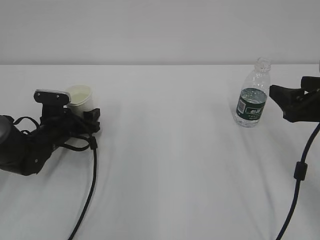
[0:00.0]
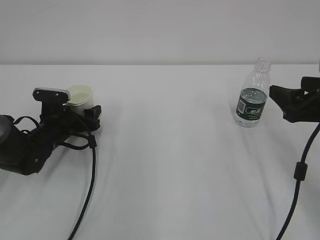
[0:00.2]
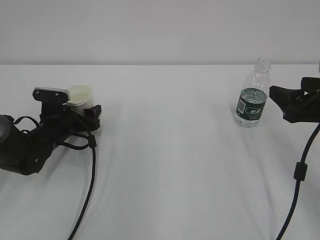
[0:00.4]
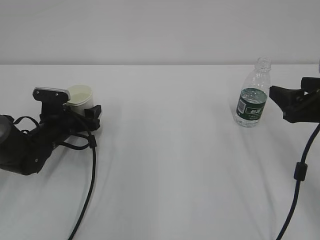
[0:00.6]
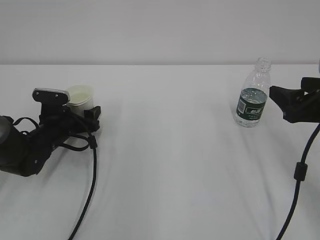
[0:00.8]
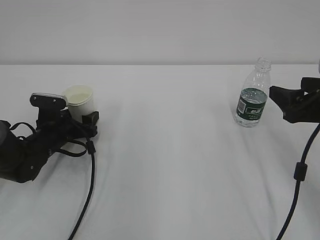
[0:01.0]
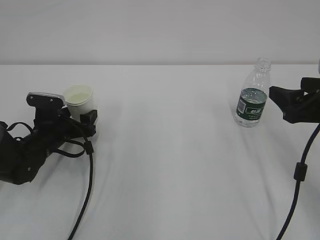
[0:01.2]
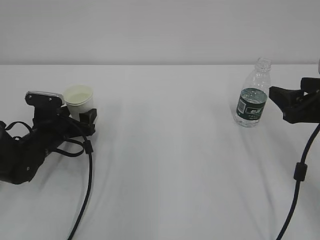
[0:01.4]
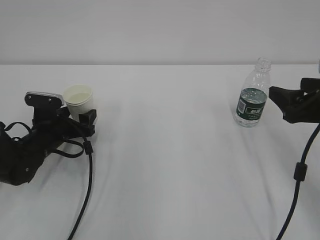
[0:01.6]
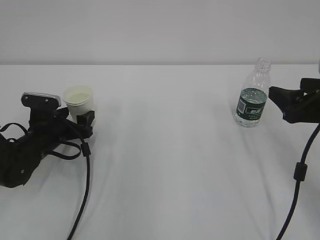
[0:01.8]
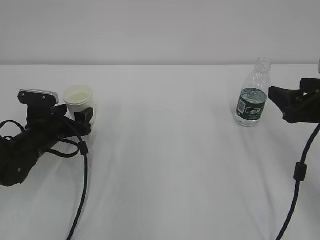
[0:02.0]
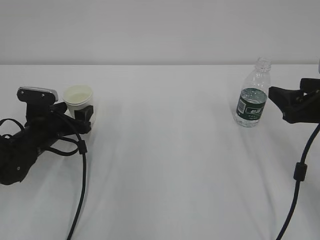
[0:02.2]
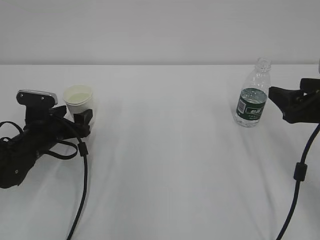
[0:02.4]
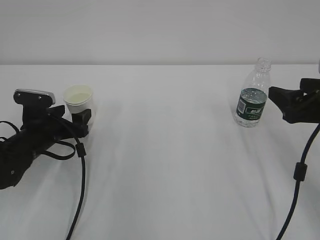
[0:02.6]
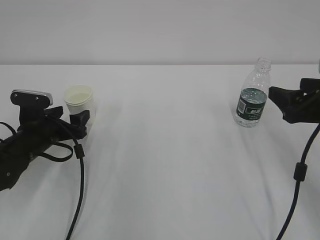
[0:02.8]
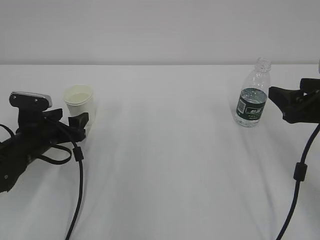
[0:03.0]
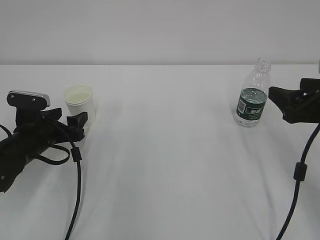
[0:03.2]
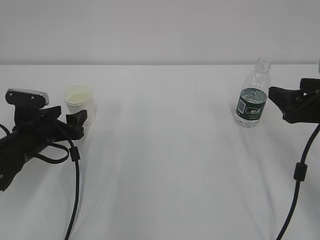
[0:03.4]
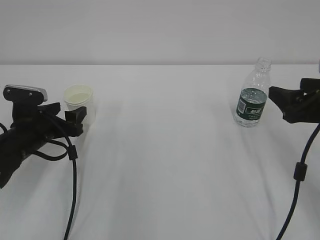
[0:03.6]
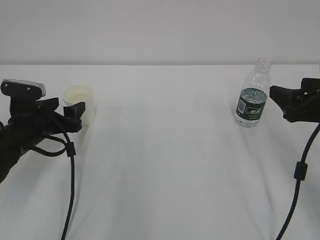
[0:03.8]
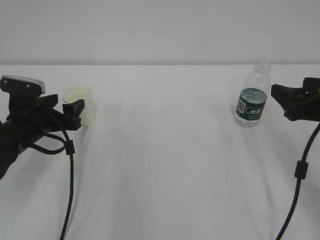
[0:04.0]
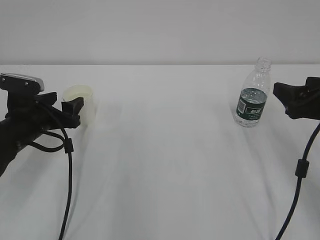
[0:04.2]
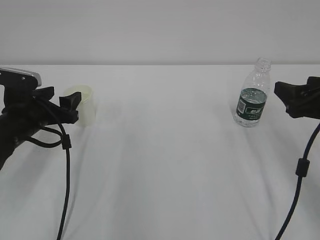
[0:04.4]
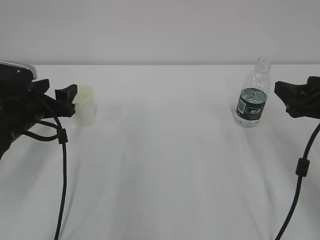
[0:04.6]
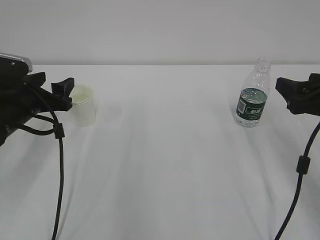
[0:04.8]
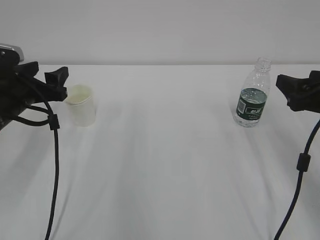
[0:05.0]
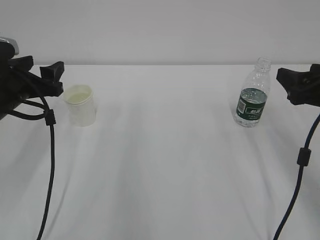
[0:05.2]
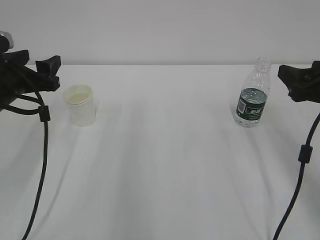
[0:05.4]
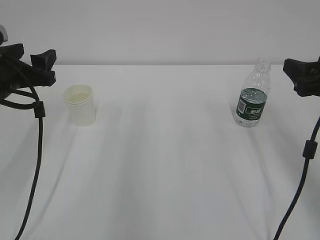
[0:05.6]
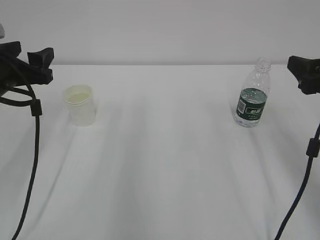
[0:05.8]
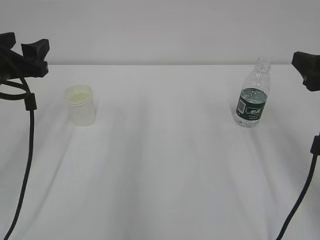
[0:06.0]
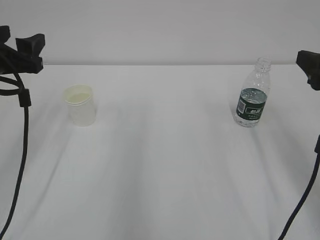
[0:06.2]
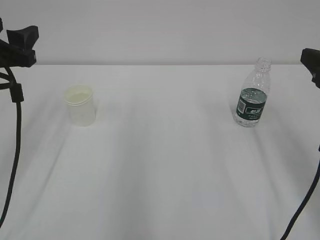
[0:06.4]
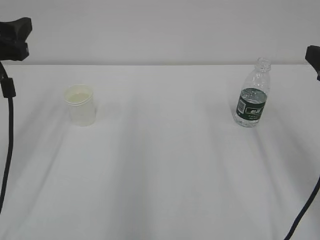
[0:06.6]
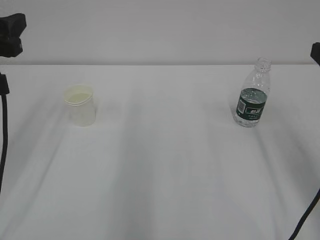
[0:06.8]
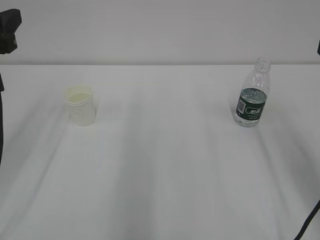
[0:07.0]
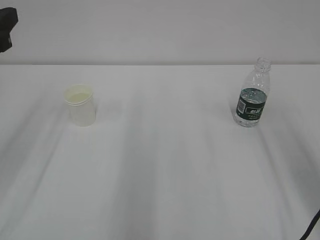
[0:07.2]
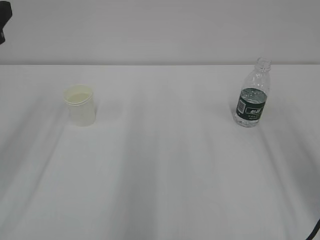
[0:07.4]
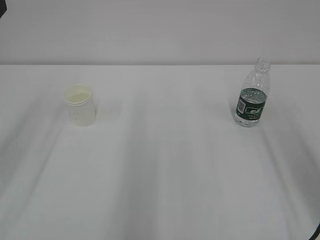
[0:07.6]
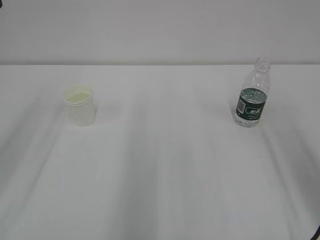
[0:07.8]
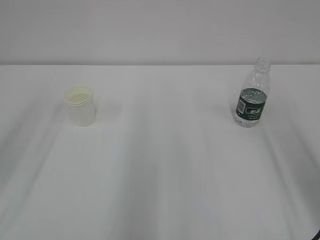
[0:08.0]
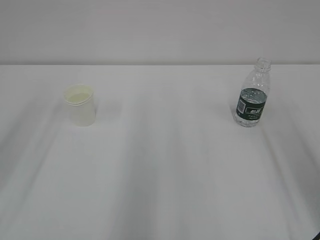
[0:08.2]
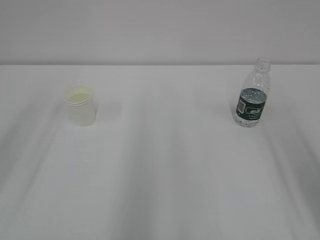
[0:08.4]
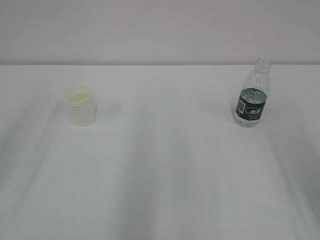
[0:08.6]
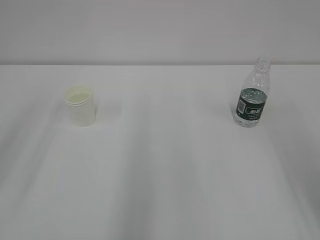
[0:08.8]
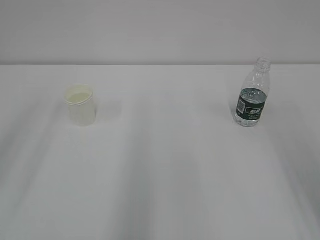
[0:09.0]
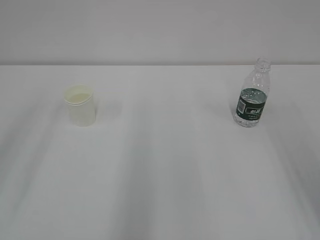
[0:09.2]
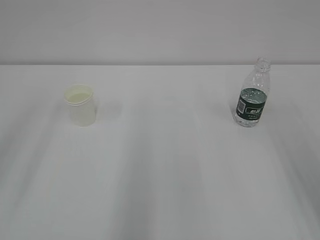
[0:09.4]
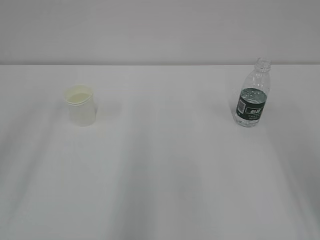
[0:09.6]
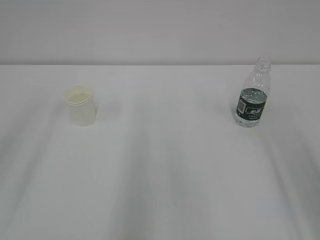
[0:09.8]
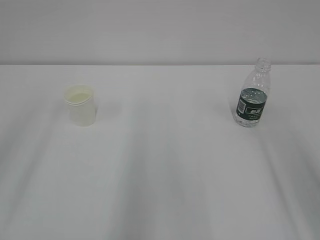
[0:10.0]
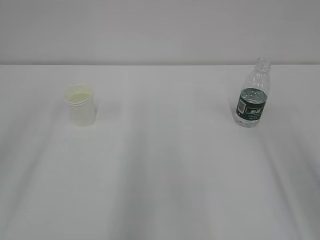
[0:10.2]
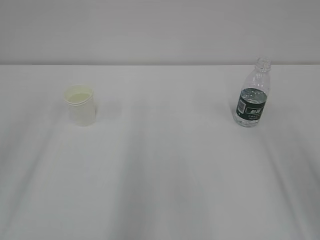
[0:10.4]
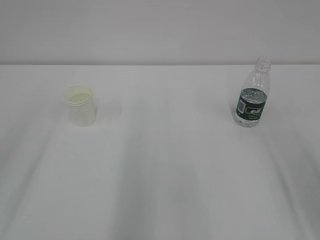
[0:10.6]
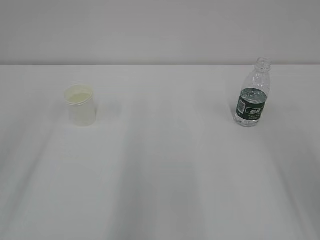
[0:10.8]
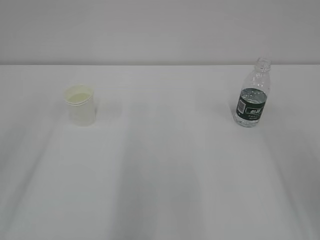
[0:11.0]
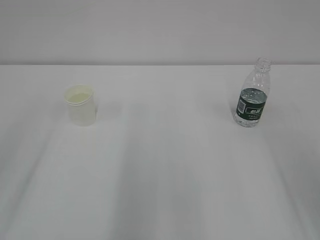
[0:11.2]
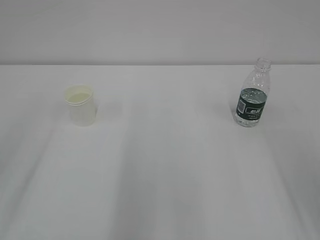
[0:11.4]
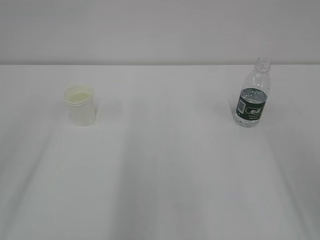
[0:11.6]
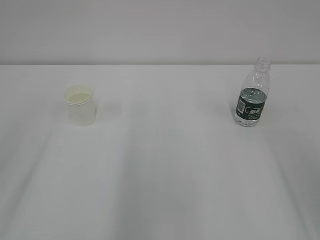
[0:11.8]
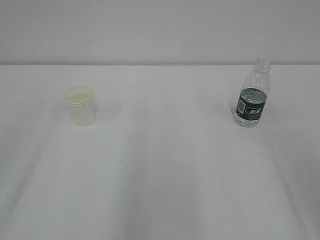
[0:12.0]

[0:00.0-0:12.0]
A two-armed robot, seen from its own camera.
0:00.0 to 0:01.6: The left gripper opens its fingers.
0:01.6 to 0:03.0: There are only small adjustments of the grippers.
0:03.0 to 0:04.4: The left gripper goes about 5 cm upward.
0:04.4 to 0:06.0: The left gripper heads upward, covering some 10 cm.
0:06.0 to 0:07.6: The left gripper moves upward and backward, roughly 10 cm. The right gripper travels backward and upward by some 10 cm.

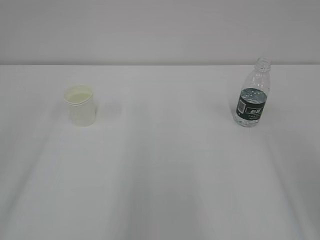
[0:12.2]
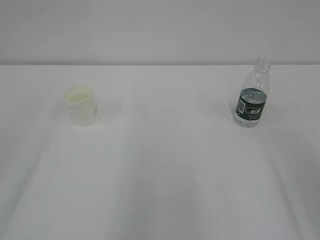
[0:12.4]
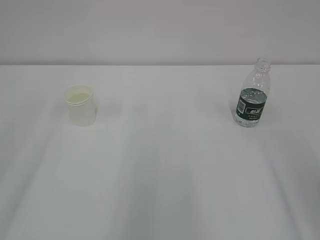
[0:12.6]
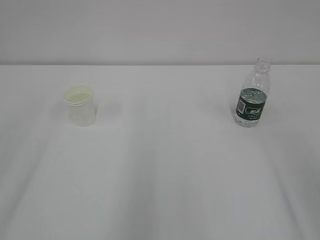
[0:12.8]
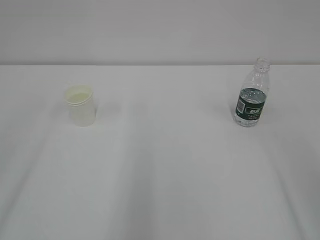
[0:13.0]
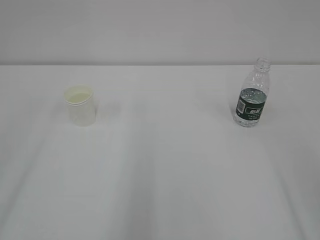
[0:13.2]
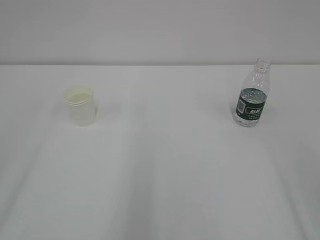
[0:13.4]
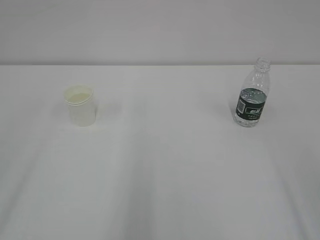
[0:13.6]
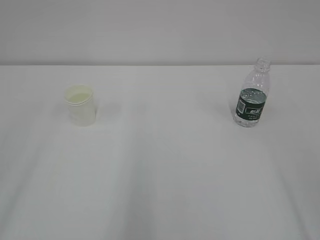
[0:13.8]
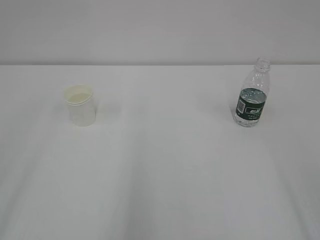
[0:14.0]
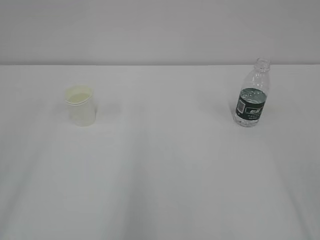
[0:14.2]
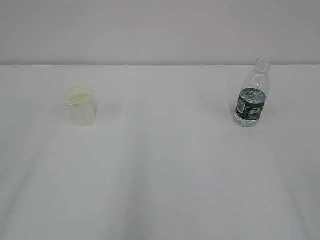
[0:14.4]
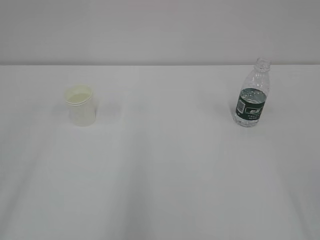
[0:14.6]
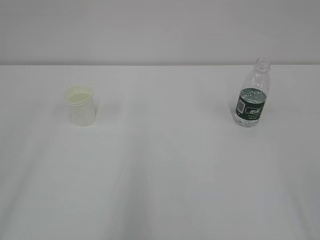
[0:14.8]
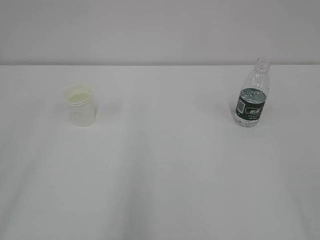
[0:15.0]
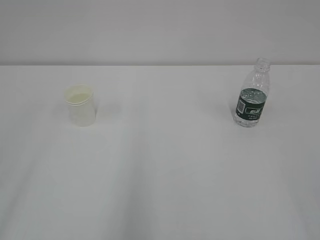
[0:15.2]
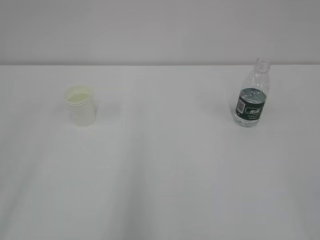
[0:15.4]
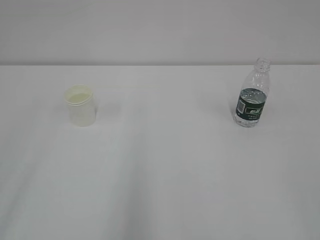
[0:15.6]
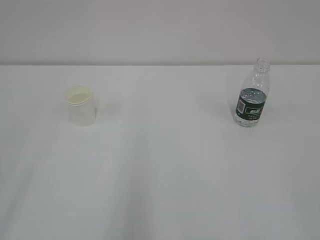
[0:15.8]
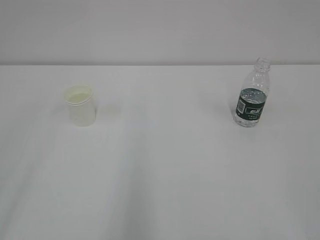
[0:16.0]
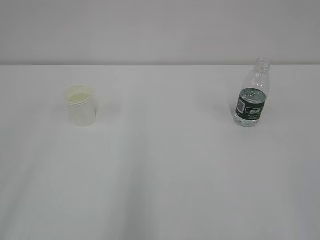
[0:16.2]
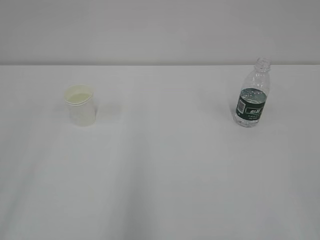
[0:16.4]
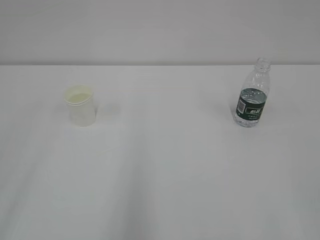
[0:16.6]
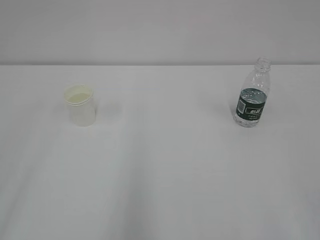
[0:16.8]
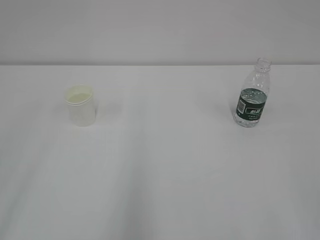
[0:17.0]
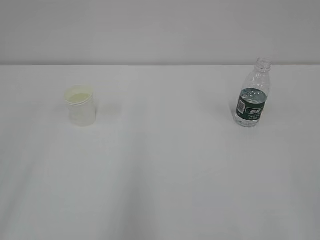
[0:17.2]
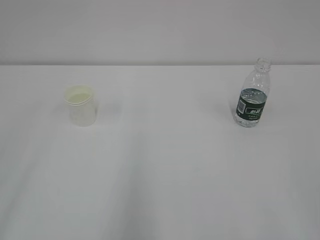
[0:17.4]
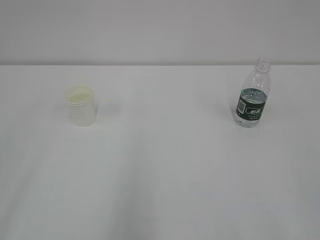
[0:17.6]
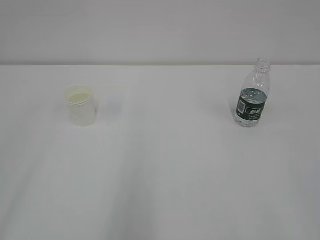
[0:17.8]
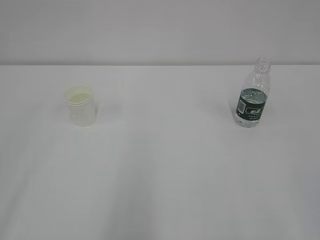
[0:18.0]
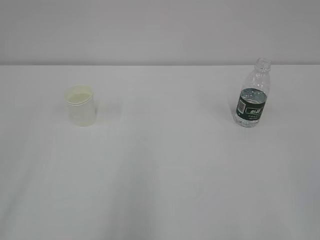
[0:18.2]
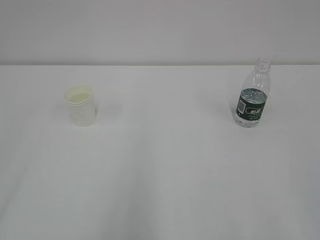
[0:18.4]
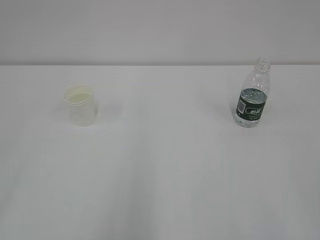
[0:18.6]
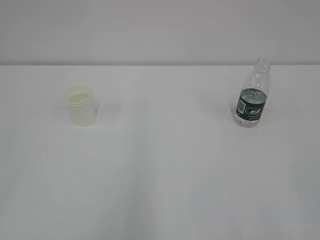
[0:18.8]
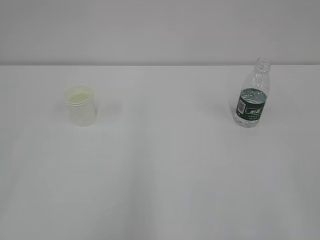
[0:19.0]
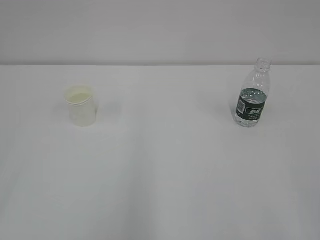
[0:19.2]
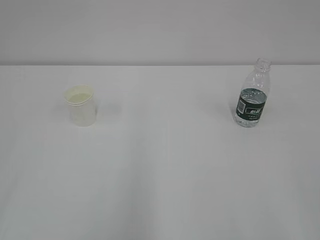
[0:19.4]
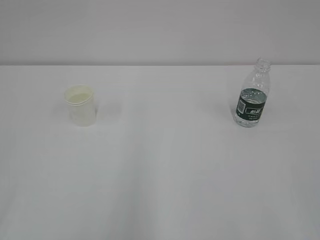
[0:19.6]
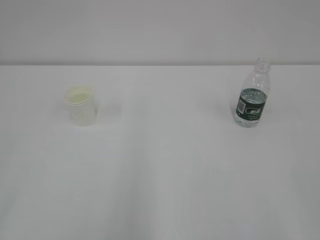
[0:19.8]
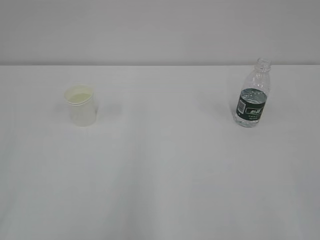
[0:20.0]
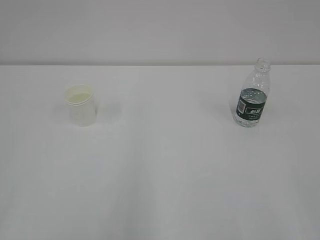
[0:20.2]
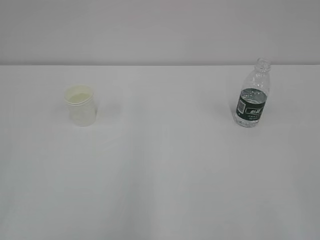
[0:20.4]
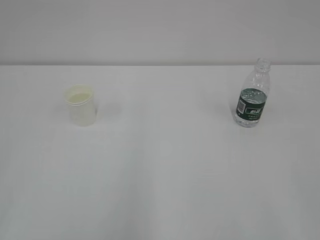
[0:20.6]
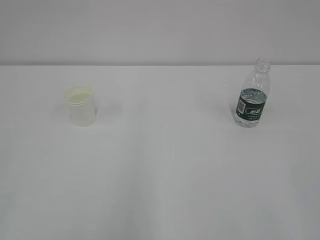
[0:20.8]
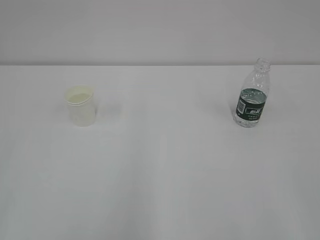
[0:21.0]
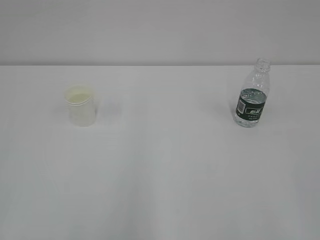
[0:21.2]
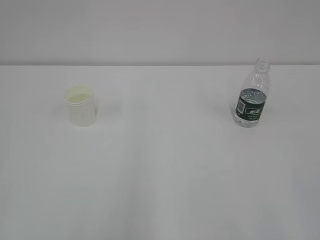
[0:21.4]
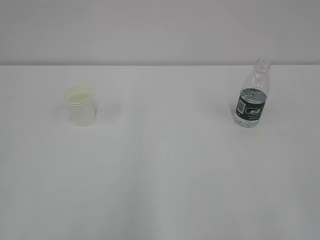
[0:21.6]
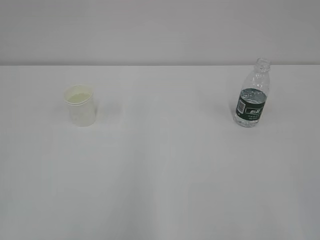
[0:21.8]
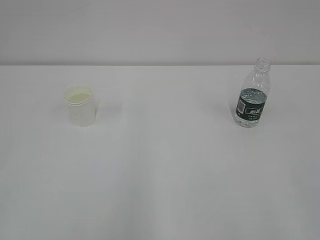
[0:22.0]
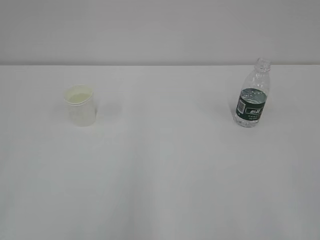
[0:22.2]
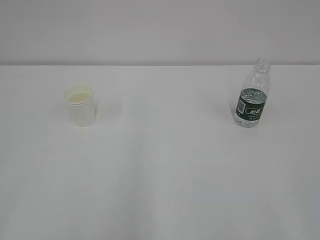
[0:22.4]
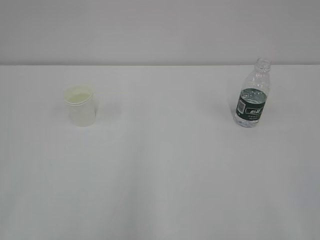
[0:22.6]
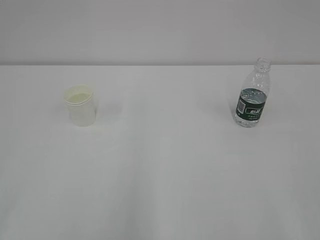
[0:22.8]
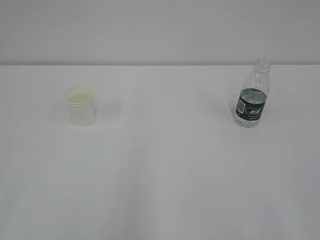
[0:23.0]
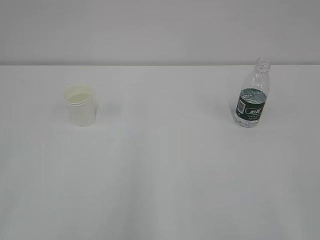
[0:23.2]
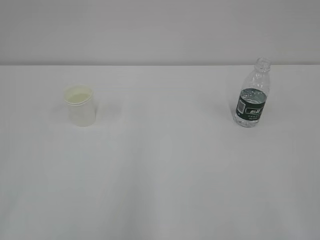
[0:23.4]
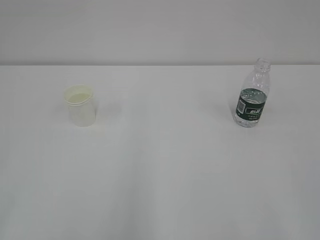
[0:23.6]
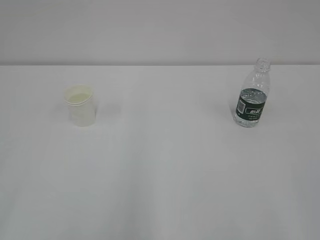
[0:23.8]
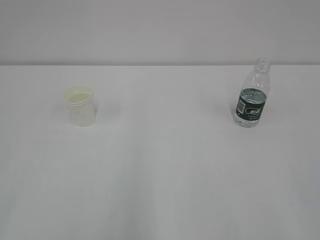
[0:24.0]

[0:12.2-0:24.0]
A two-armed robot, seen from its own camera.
0:22.6 to 0:24.0: The two grippers keep their place.
